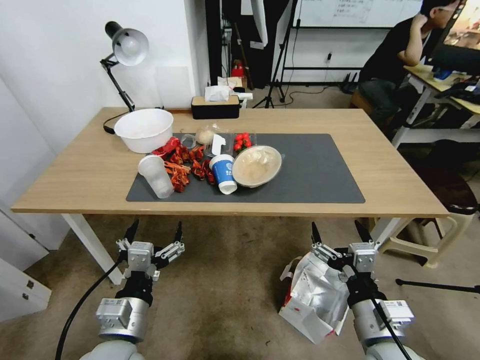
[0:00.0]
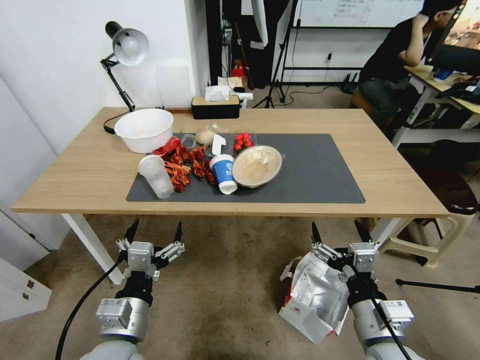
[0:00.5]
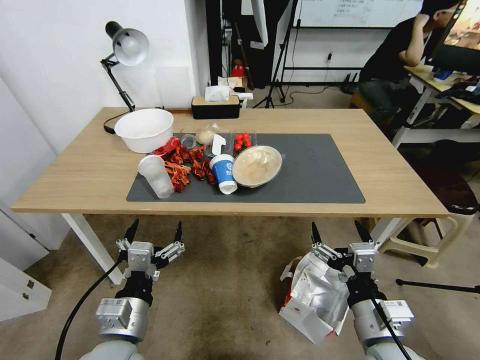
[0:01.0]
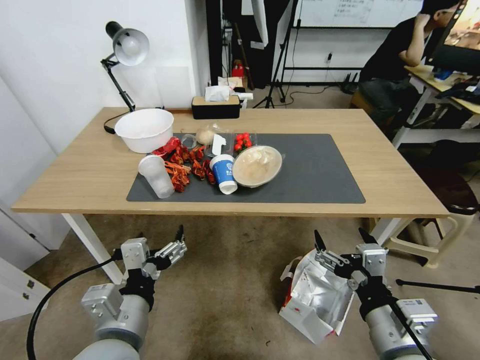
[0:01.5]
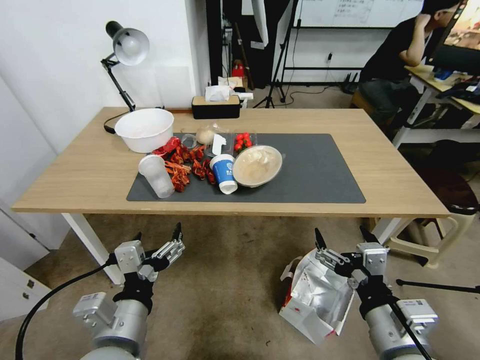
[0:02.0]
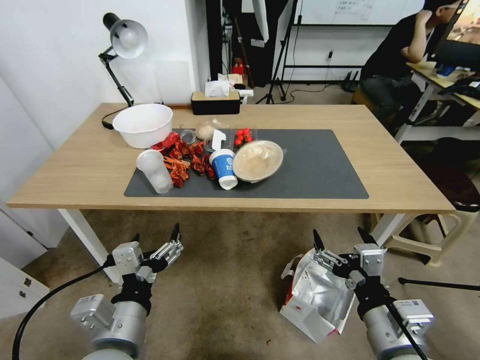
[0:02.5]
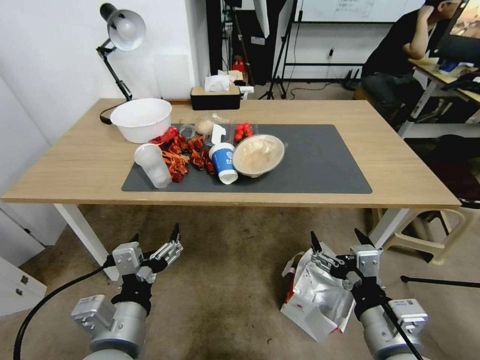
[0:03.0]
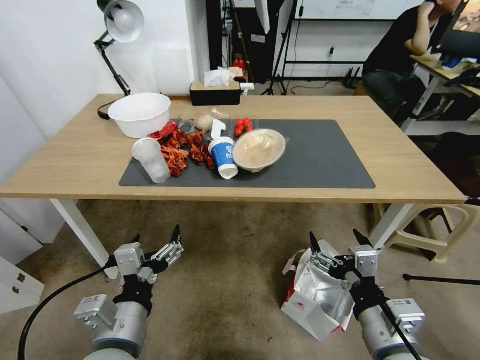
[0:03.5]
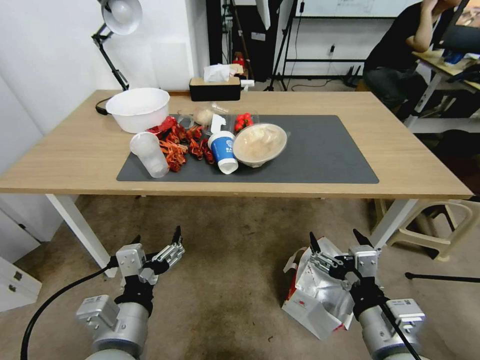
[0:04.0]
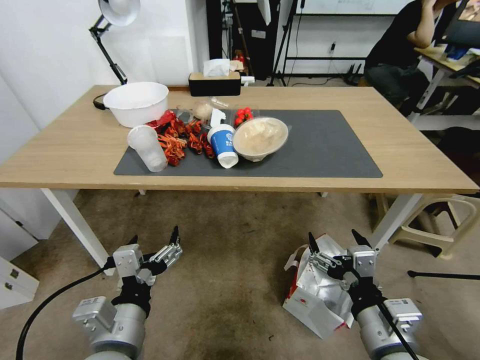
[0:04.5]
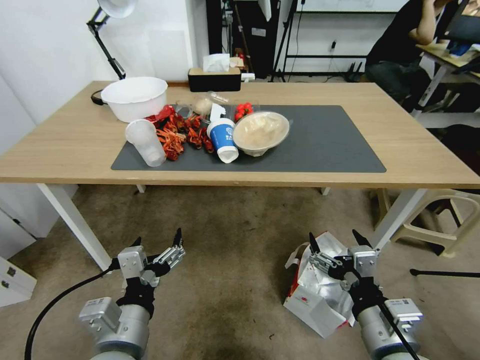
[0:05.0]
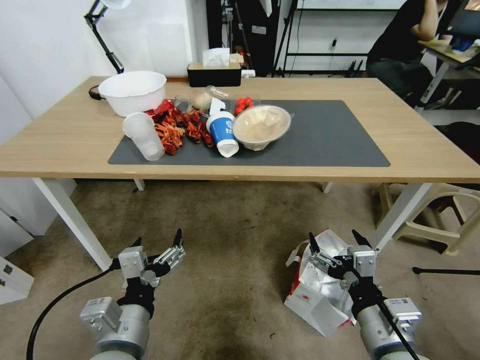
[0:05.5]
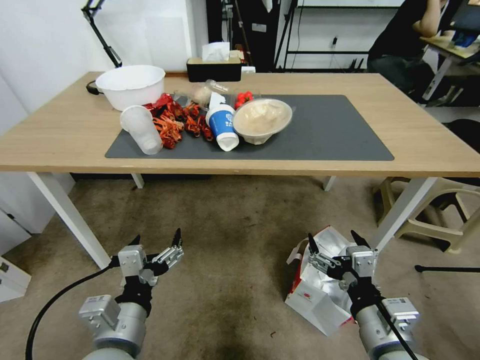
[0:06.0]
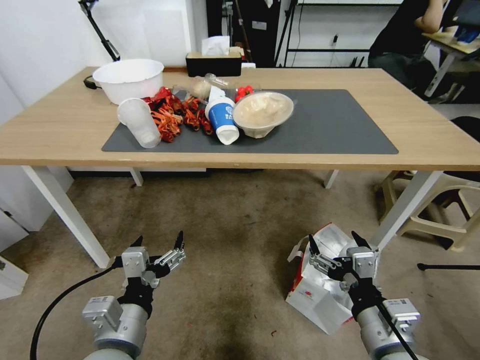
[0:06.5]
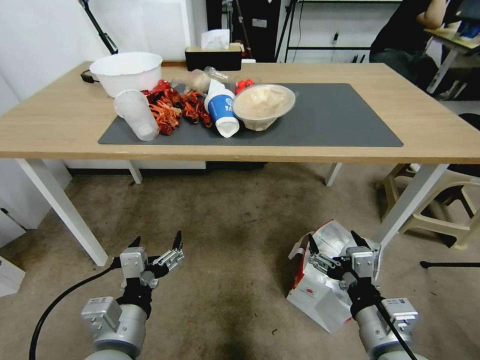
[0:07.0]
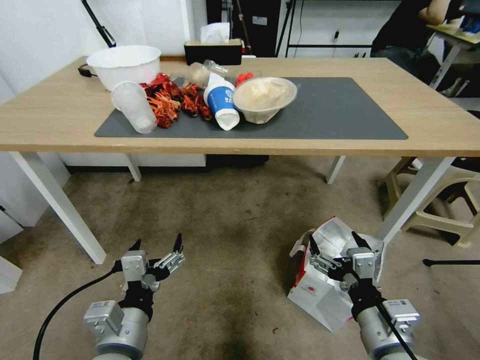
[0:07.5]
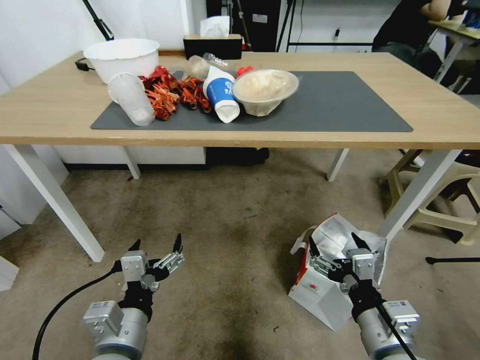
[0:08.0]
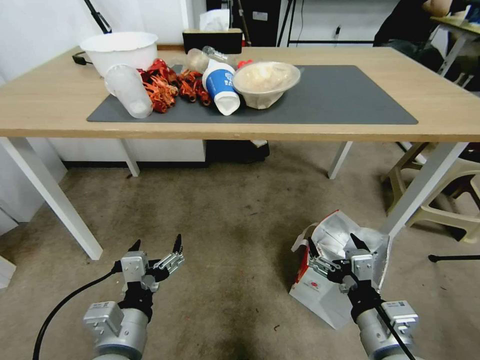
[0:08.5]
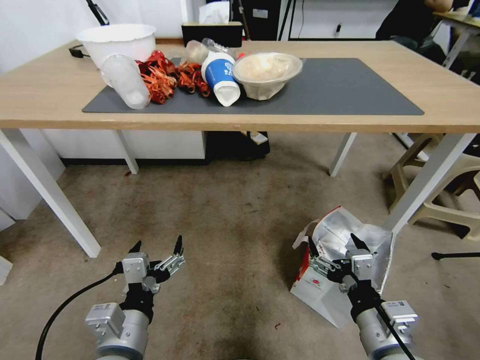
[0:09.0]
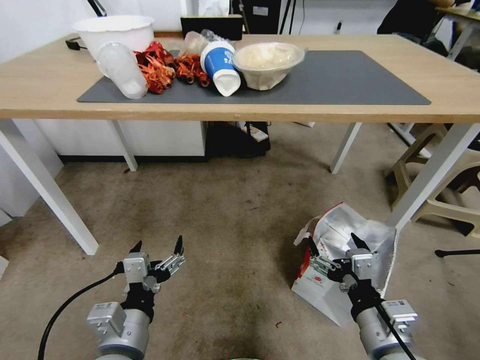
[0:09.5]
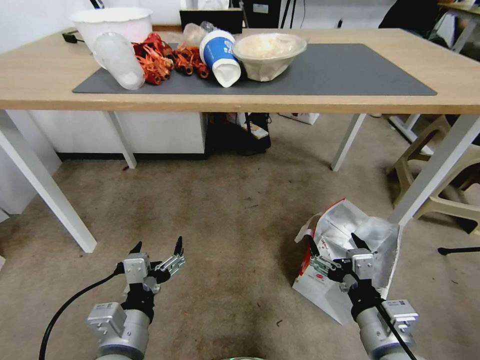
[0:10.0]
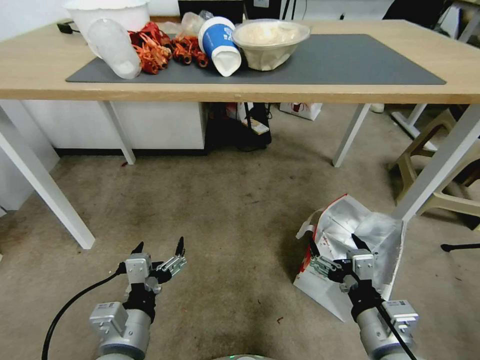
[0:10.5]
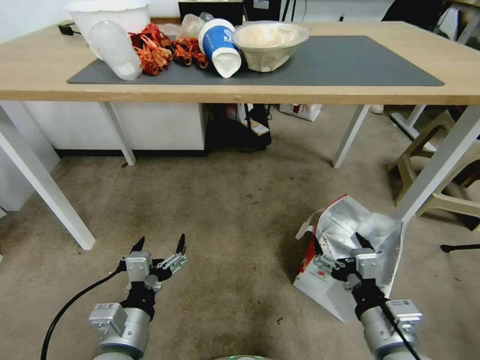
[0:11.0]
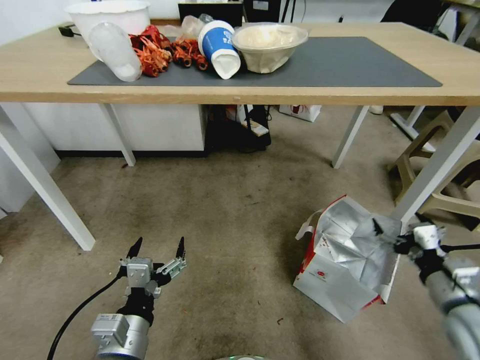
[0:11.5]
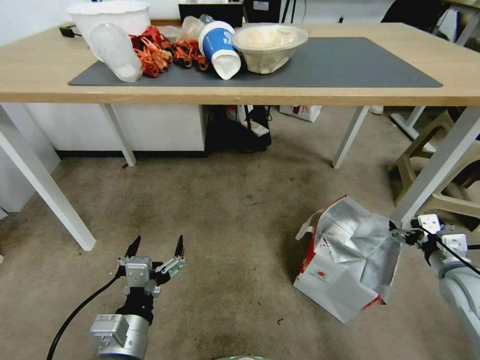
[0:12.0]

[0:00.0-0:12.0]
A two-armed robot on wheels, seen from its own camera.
Task of the whole recording: Pick up the food delivery bag from the floor and place it on the table.
0:10.0 to 0:12.0: The right gripper goes approximately 25 cm to the right and forward.

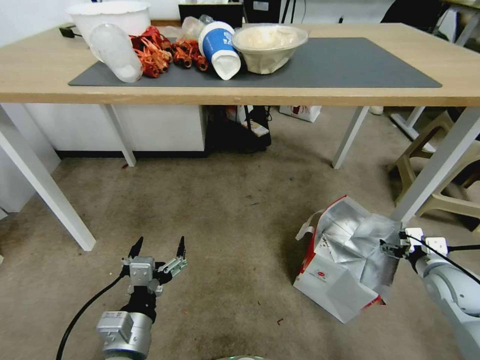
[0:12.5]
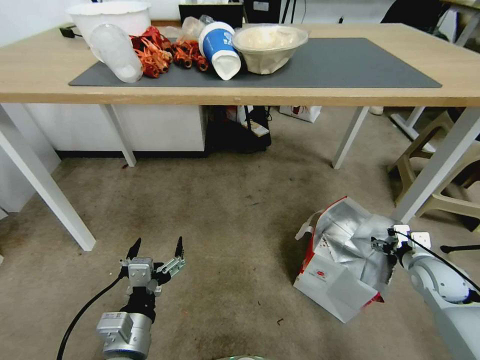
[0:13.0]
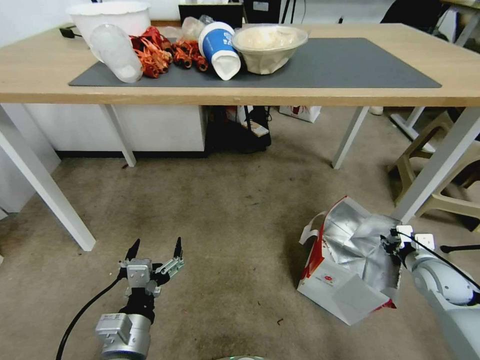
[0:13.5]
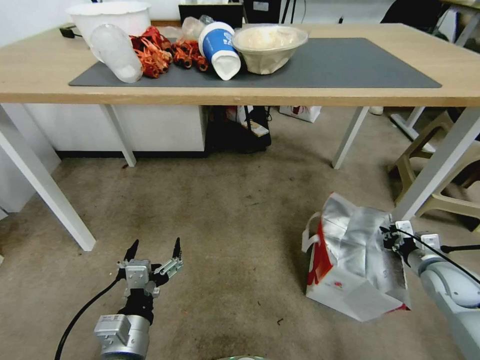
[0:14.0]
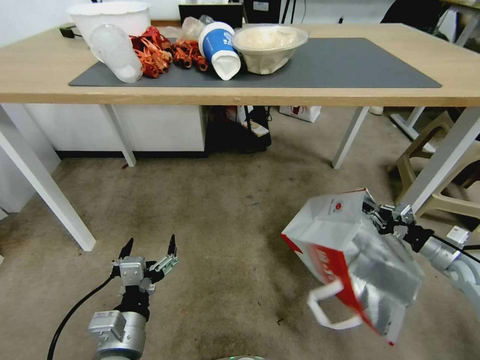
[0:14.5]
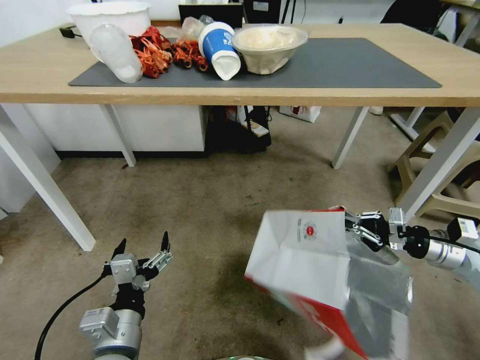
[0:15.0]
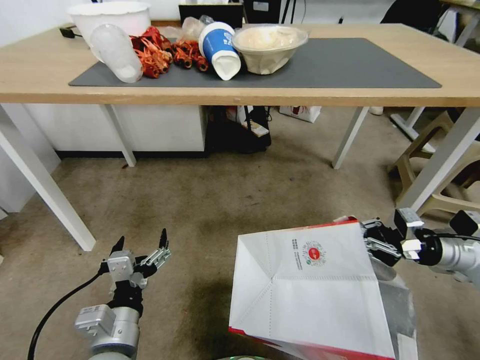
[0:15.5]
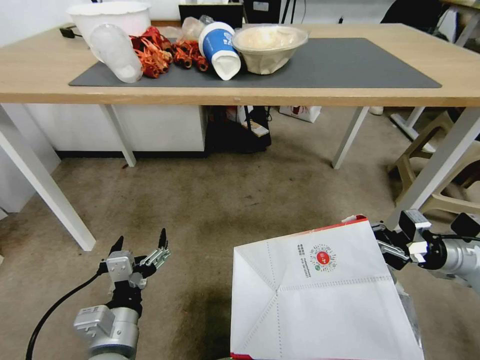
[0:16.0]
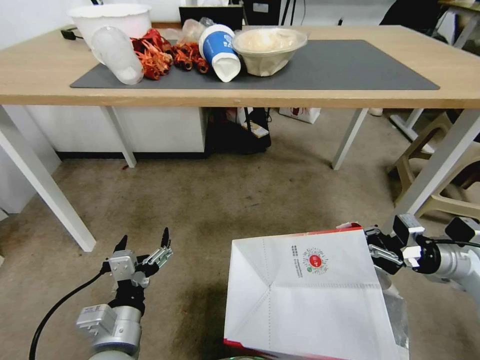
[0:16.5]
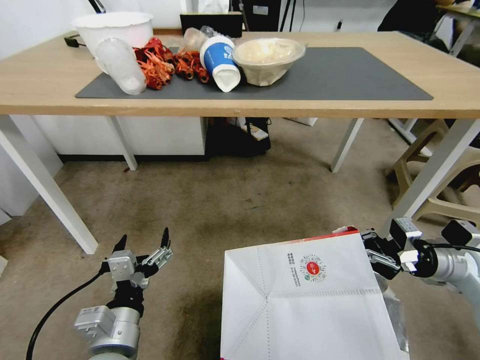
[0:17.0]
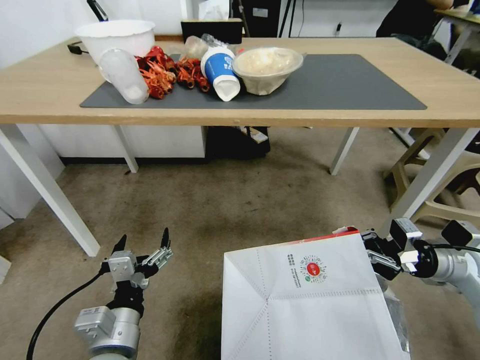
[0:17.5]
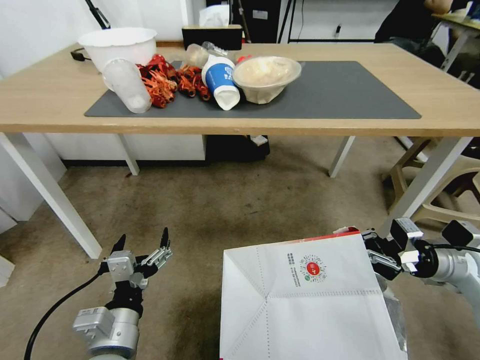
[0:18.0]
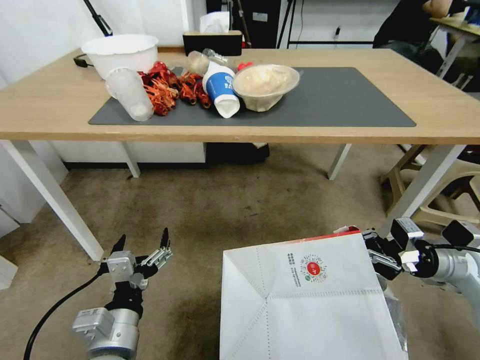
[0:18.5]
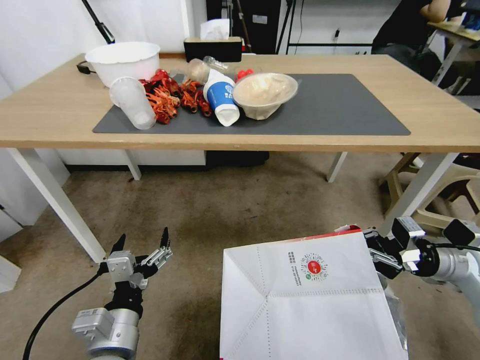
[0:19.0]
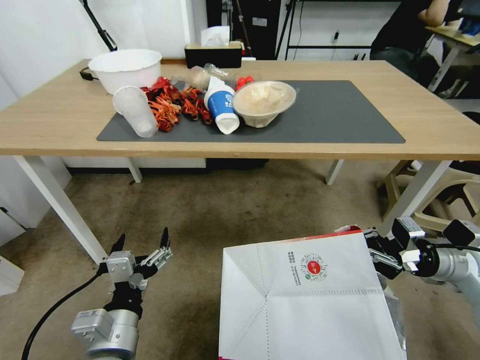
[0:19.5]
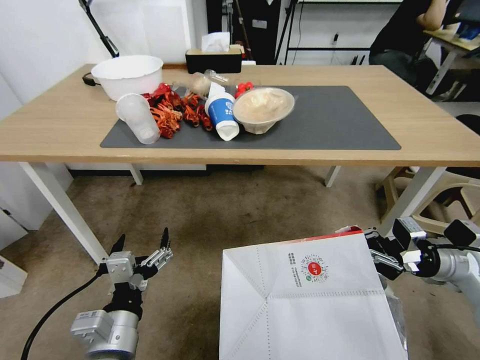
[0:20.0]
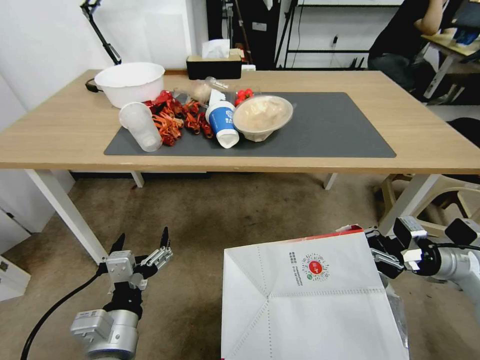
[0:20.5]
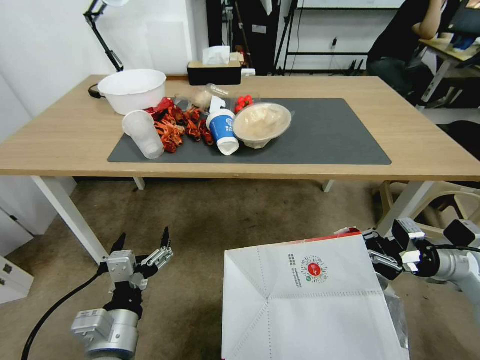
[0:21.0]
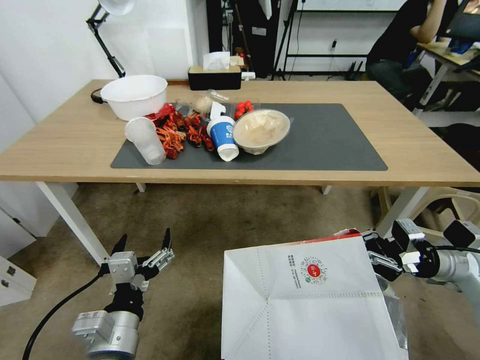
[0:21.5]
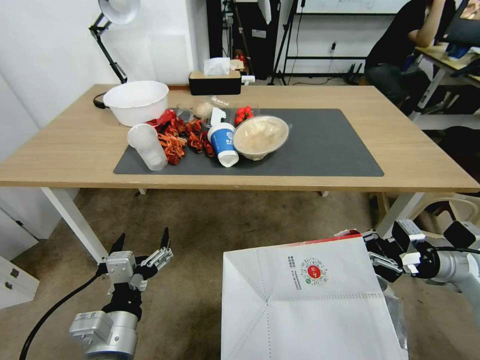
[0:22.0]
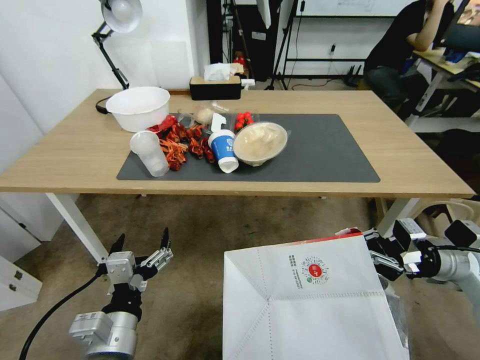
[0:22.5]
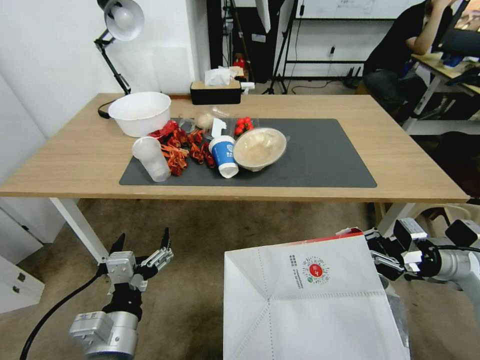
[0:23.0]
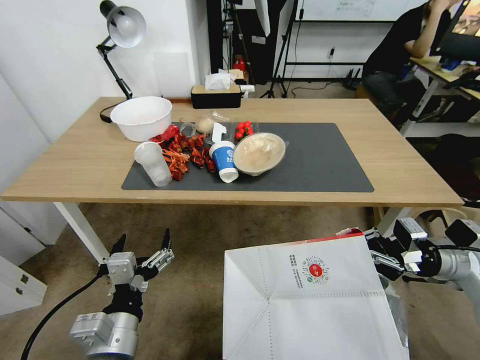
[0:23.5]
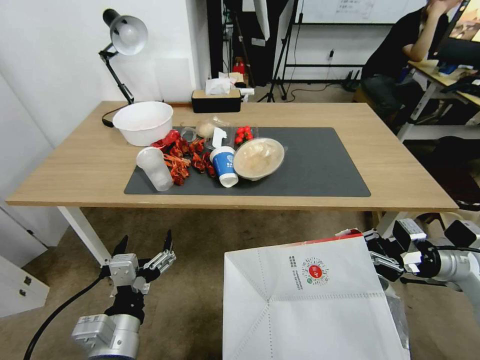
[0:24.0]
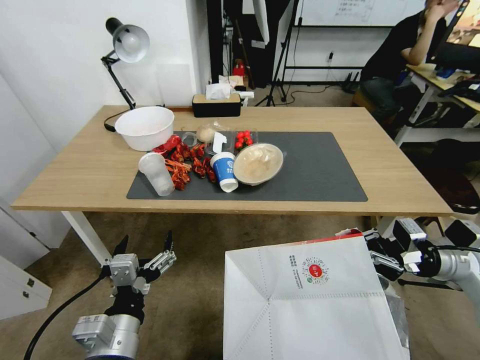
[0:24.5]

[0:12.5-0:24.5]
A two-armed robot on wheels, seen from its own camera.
Task of the whole recording: Pick up the food delivery bag from the floor and place it on the table.
0:12.5 to 0:14.5: The right gripper is displaced to the right by approximately 5 cm, and closes.
0:14.5 to 0:16.5: The right gripper moves to the left and upward, some 10 cm.

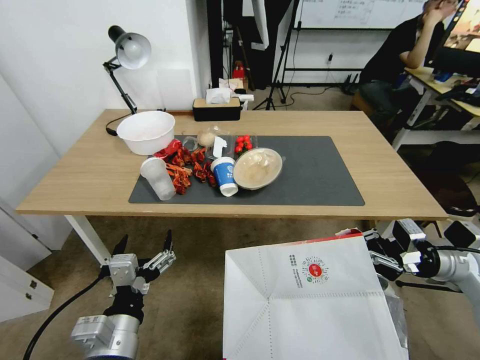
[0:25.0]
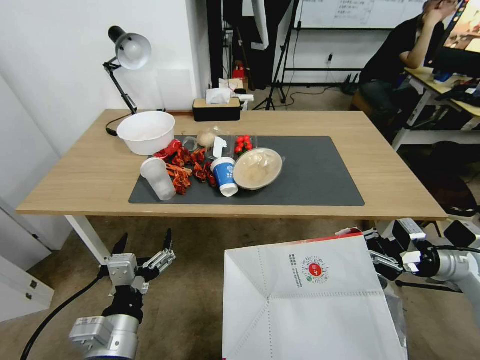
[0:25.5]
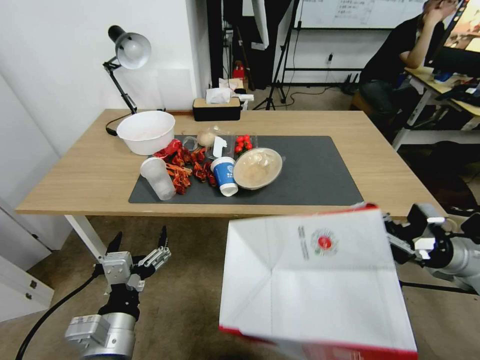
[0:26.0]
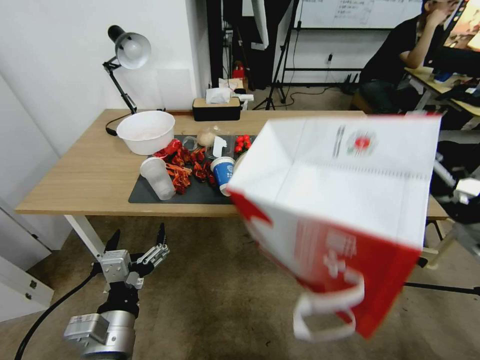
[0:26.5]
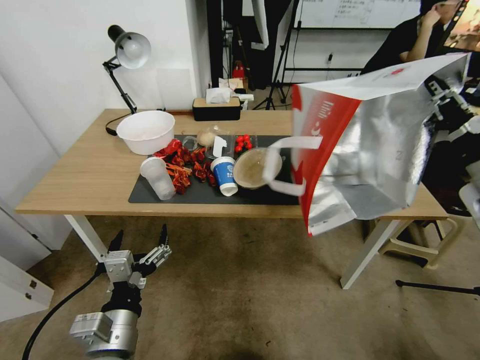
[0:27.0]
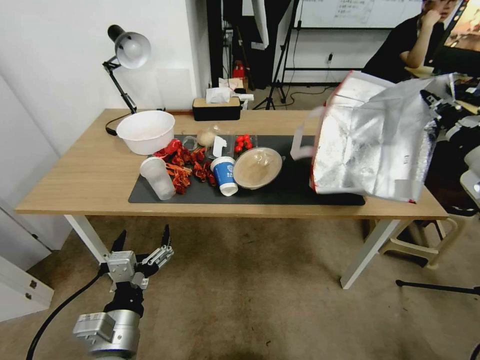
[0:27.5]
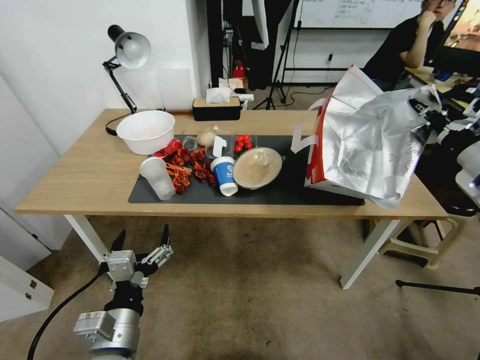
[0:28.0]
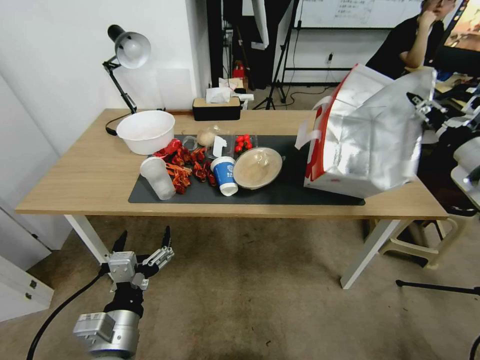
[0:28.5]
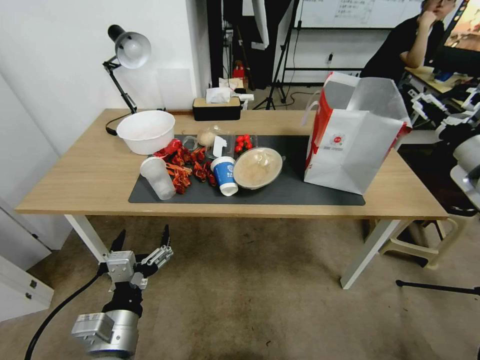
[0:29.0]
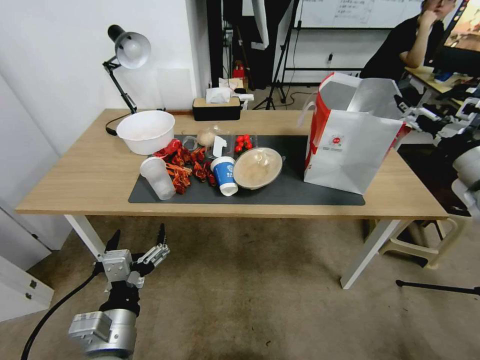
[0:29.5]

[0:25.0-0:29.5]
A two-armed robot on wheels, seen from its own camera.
Task of the whole recording: Pick up the food delivery bag from the floor and place it on the table.
0:25.0 to 0:27.0: The right gripper is displaced upward by roughly 15 cm.
0:27.0 to 0:29.5: The right gripper shifts by approximately 5 cm, and opens.
